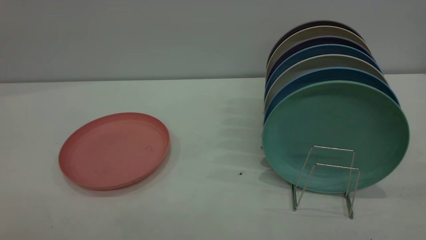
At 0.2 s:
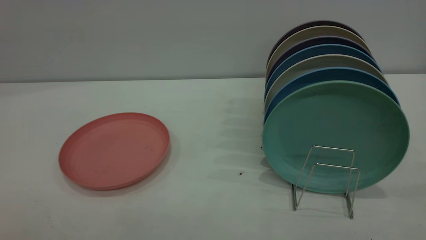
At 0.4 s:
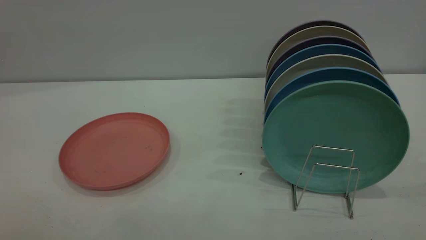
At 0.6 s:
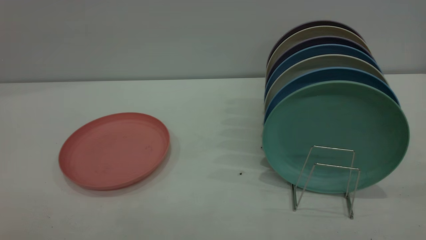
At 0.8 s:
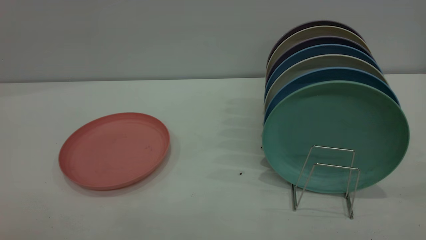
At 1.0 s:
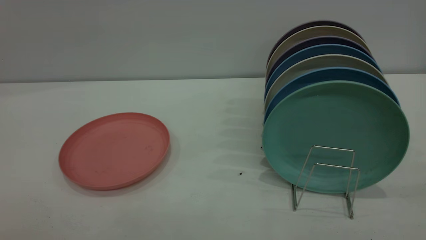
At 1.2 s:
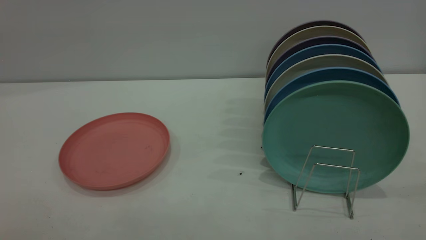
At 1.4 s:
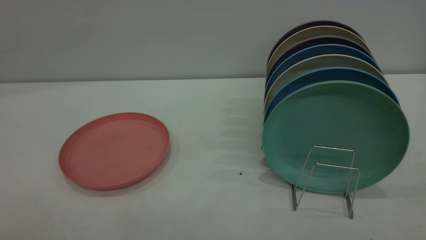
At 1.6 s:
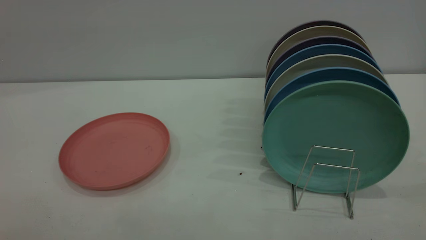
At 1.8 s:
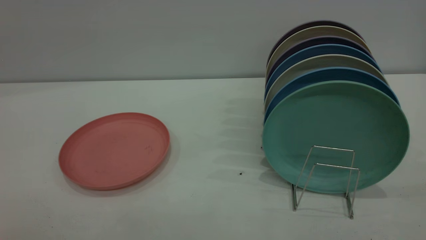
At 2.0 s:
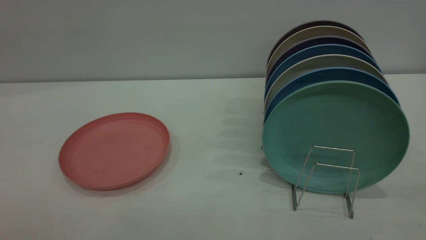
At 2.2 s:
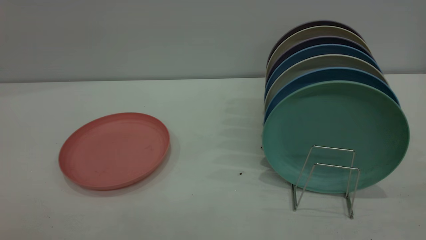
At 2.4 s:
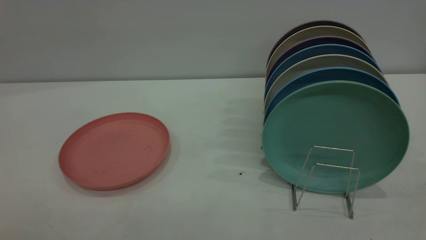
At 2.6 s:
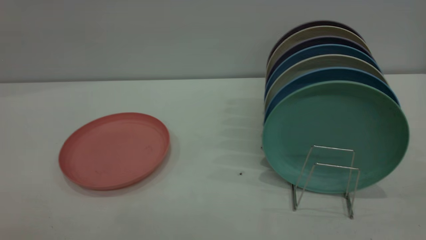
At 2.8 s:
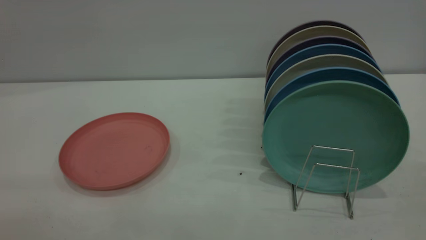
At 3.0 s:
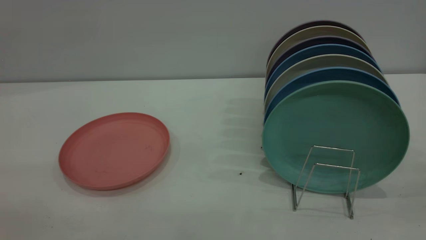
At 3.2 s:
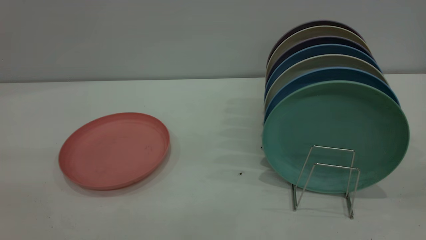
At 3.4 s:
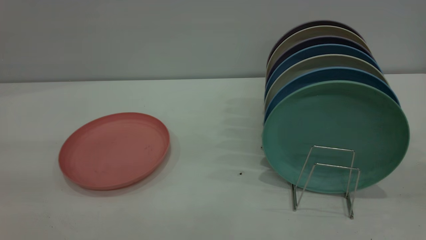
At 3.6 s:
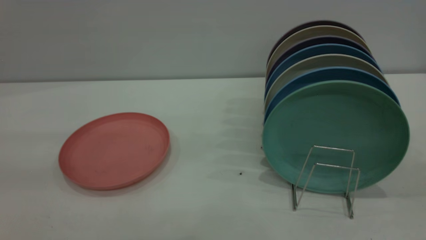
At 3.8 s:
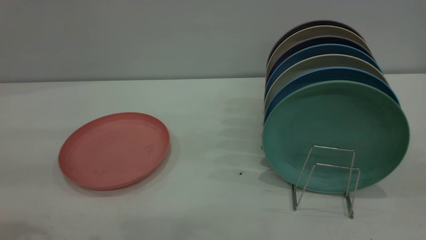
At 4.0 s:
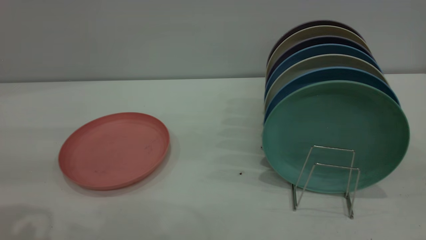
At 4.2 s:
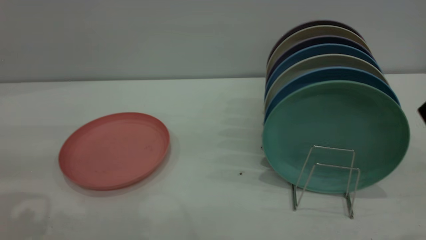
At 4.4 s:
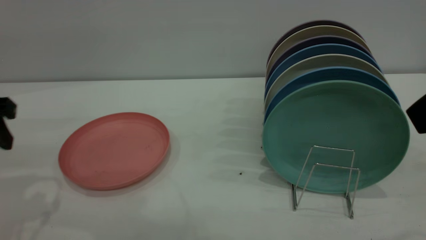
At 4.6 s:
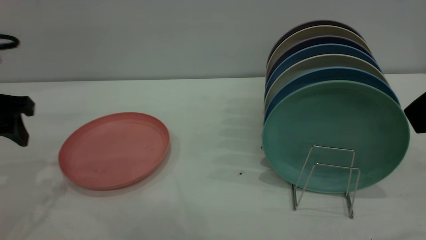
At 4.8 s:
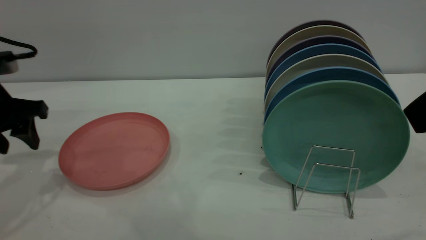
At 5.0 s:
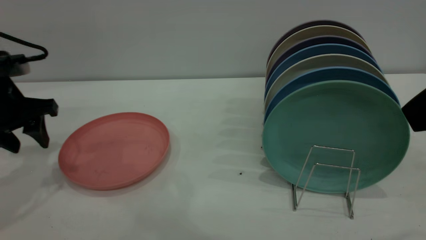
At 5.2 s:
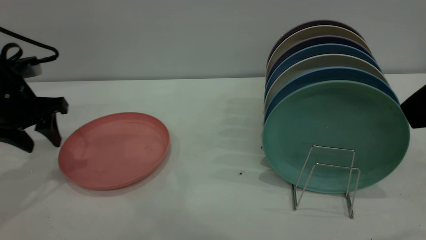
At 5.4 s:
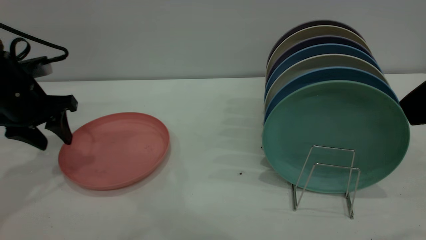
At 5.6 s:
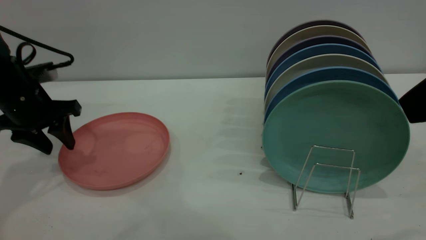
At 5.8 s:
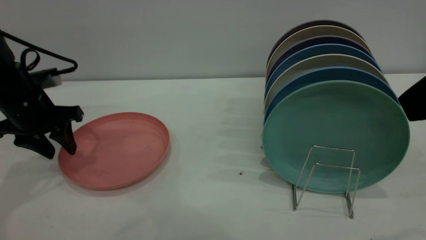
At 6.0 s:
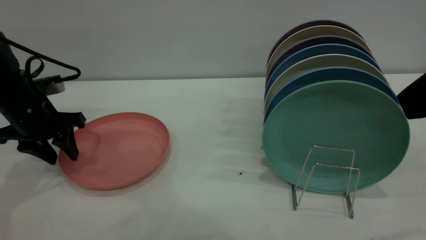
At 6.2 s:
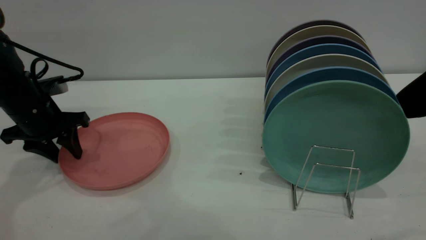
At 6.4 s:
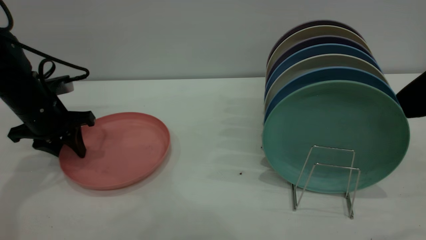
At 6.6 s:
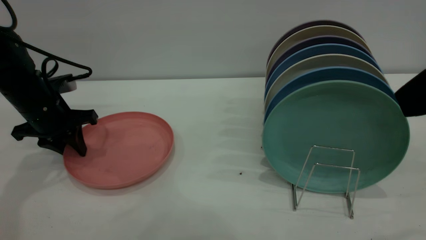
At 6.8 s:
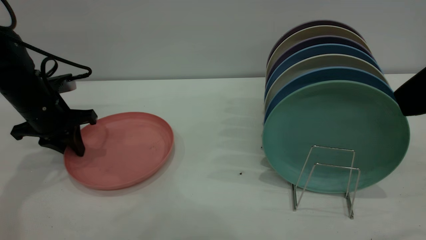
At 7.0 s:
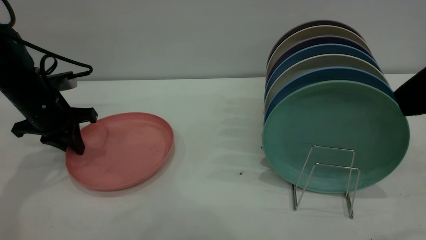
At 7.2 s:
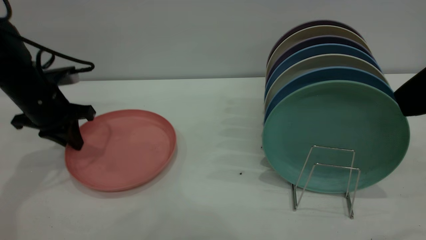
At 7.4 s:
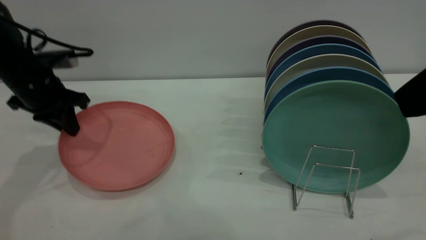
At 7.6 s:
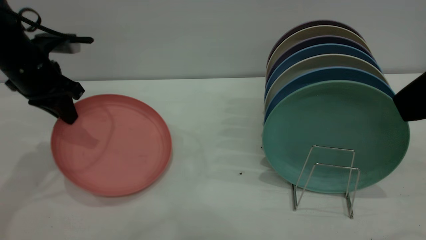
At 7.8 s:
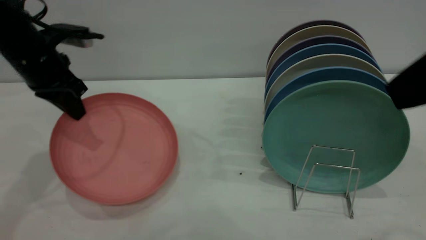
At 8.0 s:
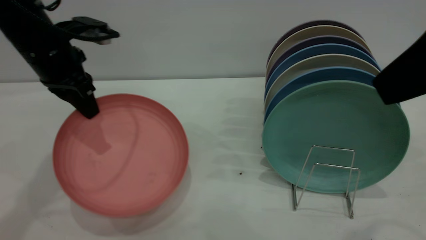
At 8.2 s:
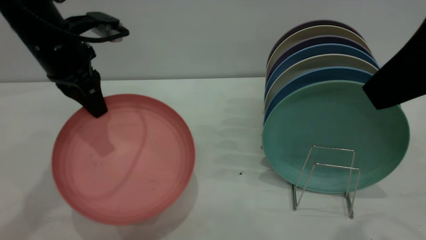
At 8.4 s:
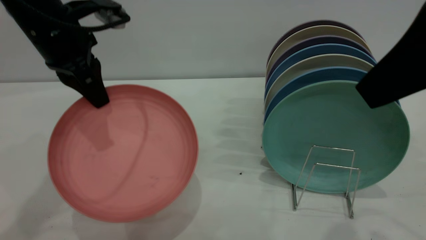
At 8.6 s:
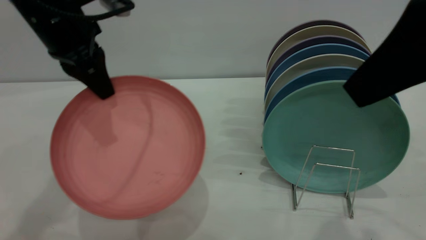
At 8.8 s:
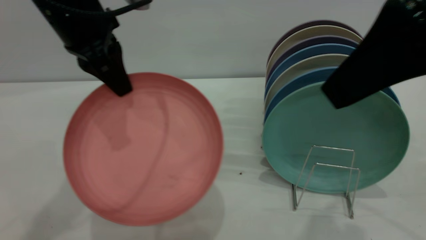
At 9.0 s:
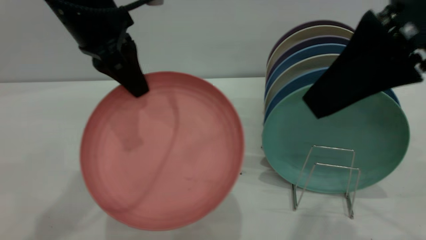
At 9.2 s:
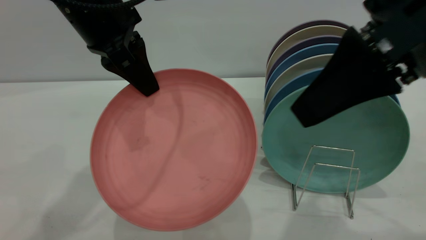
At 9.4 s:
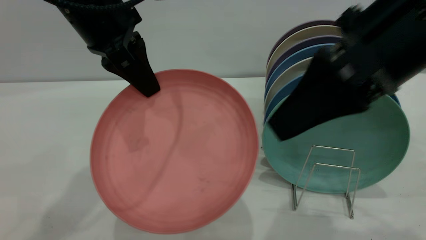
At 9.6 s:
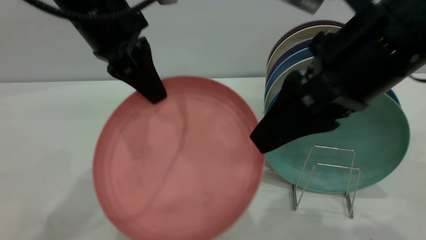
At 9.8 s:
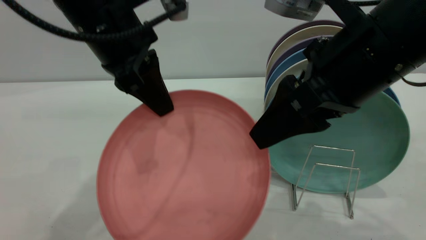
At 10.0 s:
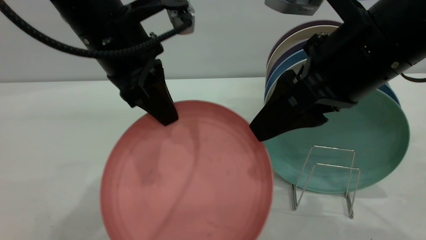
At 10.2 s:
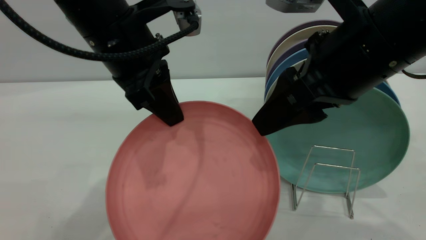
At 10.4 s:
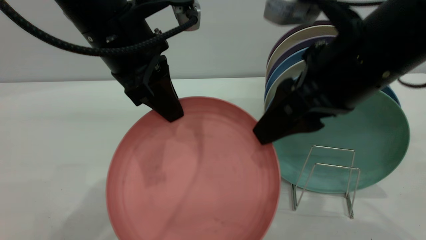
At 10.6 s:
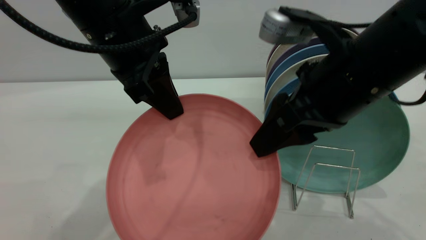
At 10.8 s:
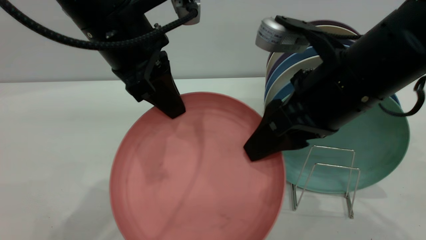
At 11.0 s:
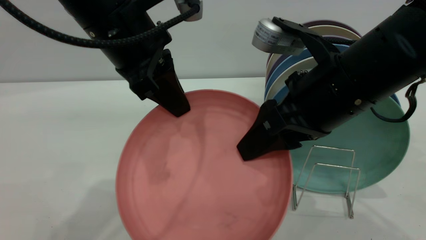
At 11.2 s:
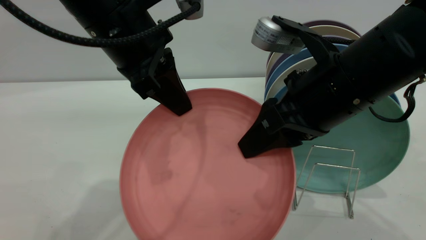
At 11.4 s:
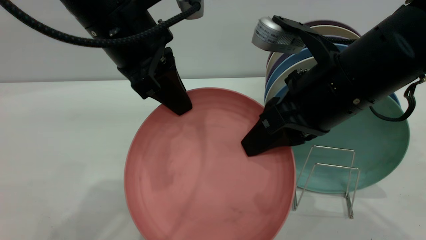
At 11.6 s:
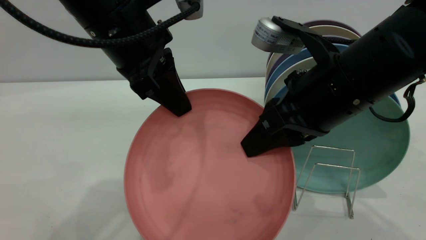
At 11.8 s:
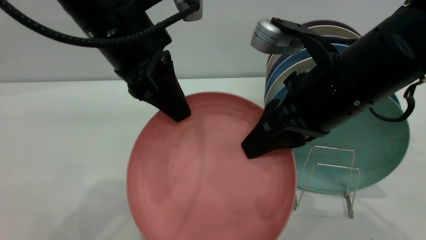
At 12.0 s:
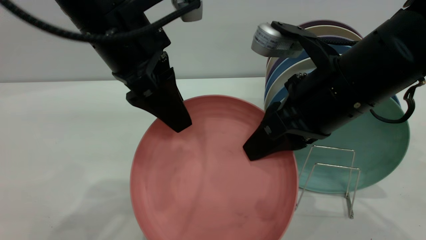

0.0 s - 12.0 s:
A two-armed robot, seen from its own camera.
Task of the whole recording: put the plate on the plate rack.
Step, 0.0 s - 7.6 s: Pick up the plate with the left gripper.
0.0 s - 1.6 s: Both grippers stay about where they are.
3.0 s - 4.4 s: The left gripper shifts some 25 cm forward and downward.
4.4 s - 6.0 s: The left gripper travels forward and downward by approximately 15 cm.
6.0 s - 7.6 s: The left gripper moves upward, about 5 cm, and closes.
7.6 s - 9.0 s: The left gripper moves to the right, upward and backward, roughly 20 cm. The right gripper travels forward by approximately 5 cm.
9.0 s - 10.4 s: The right gripper goes approximately 5 cm downward, and opens. Meanwhile the left gripper moves some 5 cm.
10.4 s - 12.0 s: The left gripper opens, while the right gripper closes.

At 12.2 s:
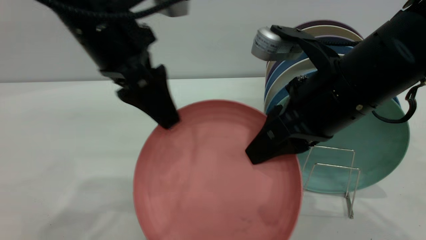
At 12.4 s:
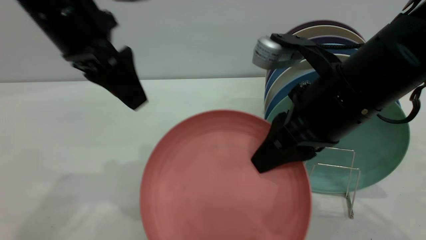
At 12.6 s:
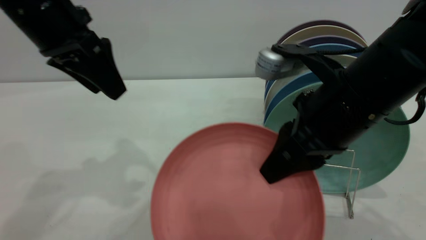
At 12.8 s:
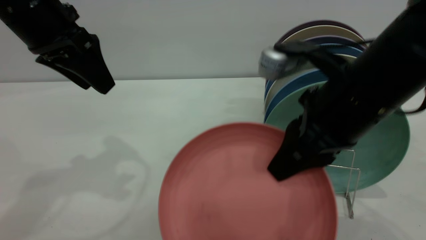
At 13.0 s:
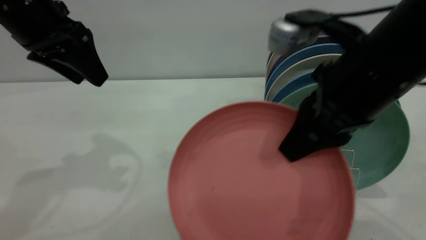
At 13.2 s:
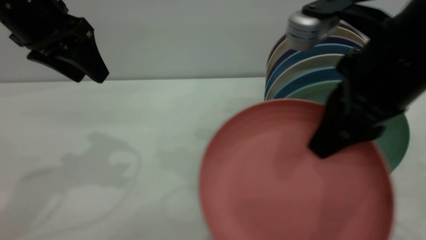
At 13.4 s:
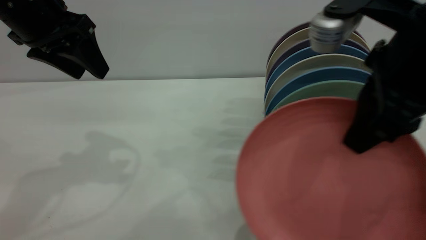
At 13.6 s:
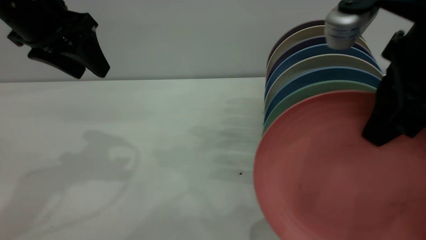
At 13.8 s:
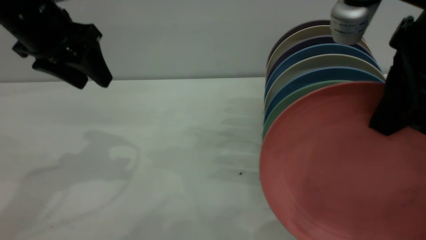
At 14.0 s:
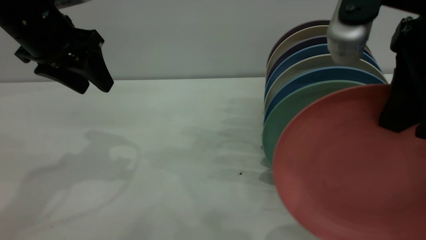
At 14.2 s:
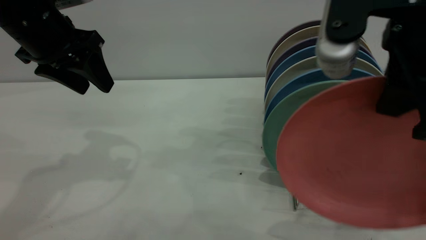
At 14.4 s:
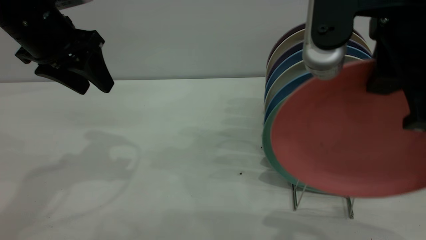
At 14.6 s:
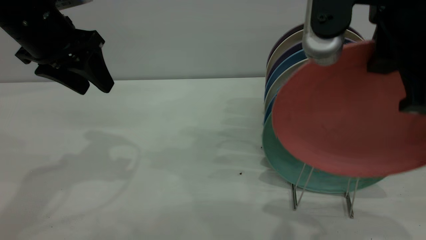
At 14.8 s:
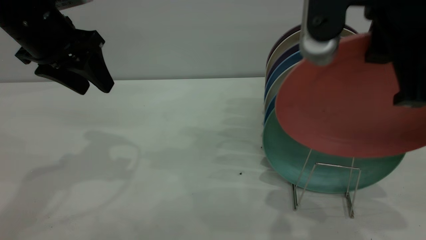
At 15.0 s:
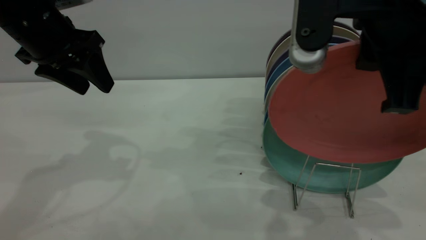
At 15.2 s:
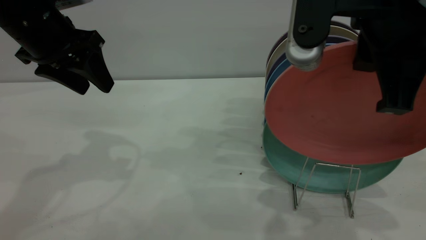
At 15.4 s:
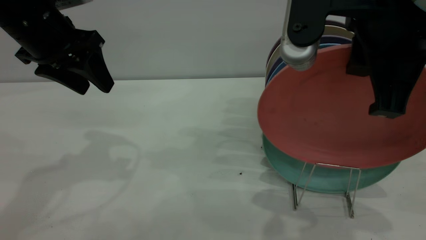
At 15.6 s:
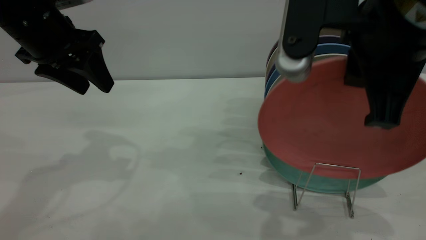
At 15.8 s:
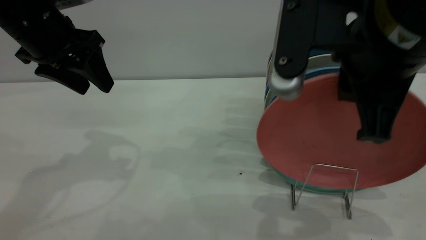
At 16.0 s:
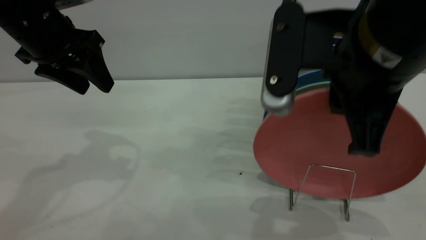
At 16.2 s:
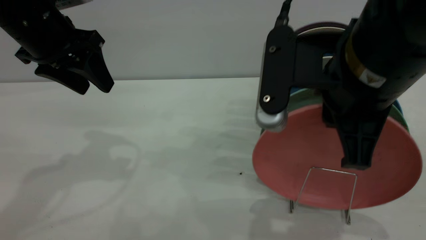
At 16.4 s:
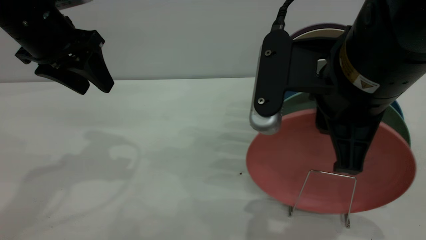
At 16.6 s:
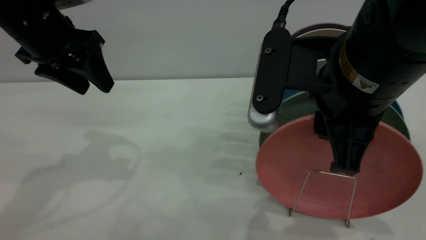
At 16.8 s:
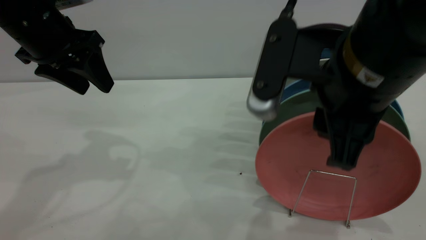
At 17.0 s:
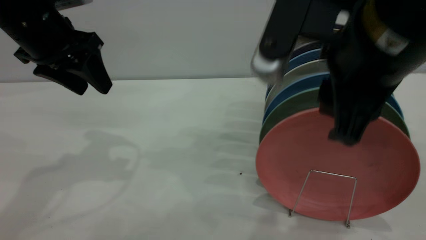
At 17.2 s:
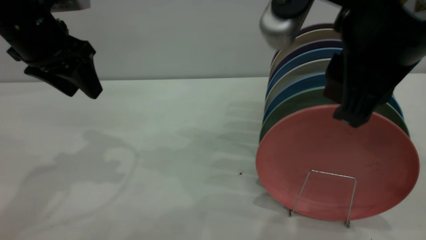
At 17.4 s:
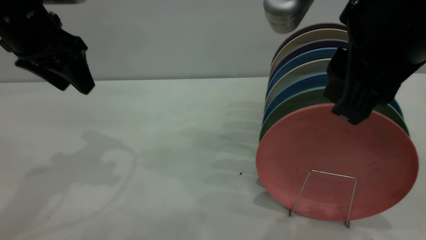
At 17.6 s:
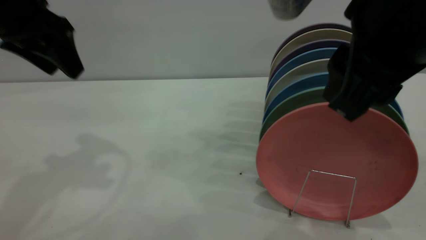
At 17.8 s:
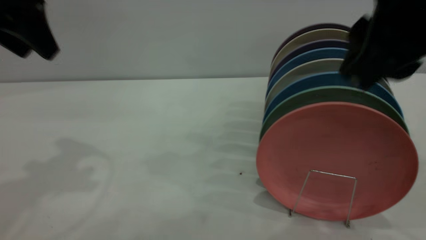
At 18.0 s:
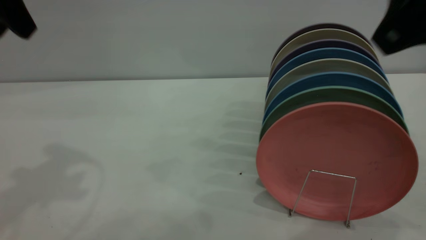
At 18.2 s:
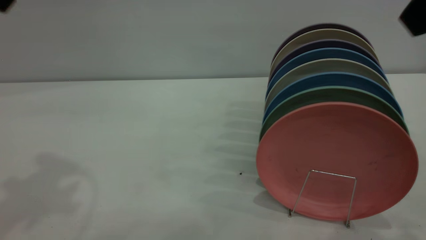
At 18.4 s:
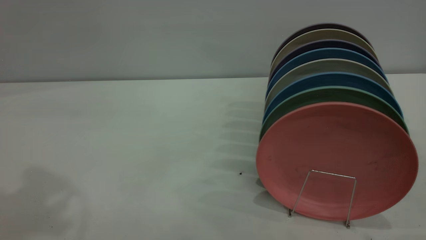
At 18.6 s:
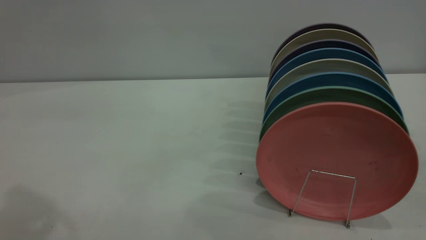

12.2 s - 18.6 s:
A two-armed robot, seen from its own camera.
Task of the whole recording: put the plate on the plate rack.
Step, 12.4 s - 17.8 s: Place the plate on the shelf.
12.2 s - 13.8 s: The right gripper travels upward and backward by some 10 cm, while the left gripper is displaced to the left by approximately 10 cm.
15.4 s - 17.0 s: The right gripper opens its fingers.
17.0 s - 18.6 s: The right gripper heads upward, to the right and backward, covering roughly 20 cm; the left gripper moves upward and backward, some 25 cm.
